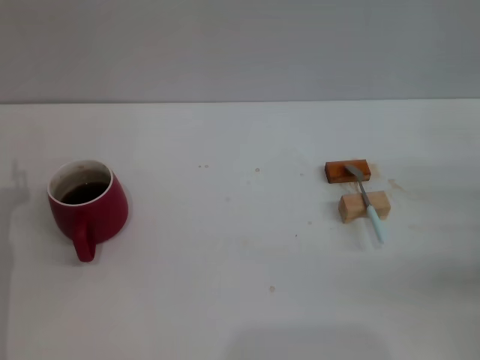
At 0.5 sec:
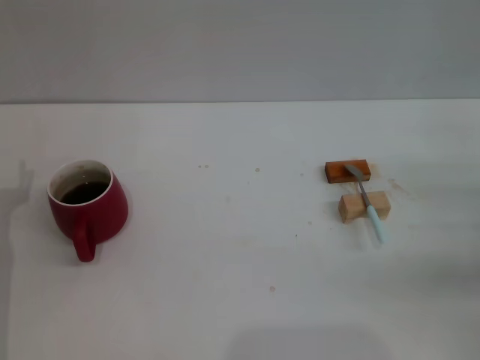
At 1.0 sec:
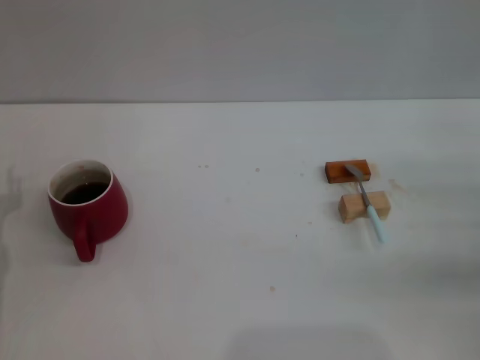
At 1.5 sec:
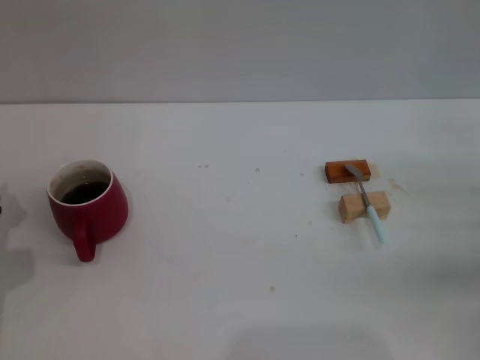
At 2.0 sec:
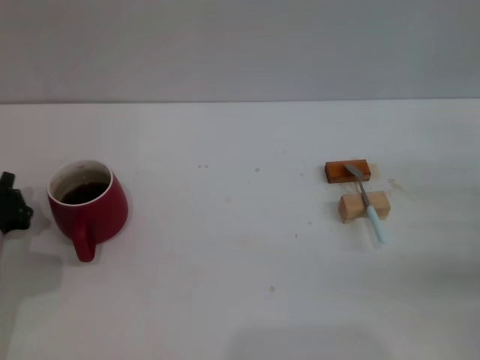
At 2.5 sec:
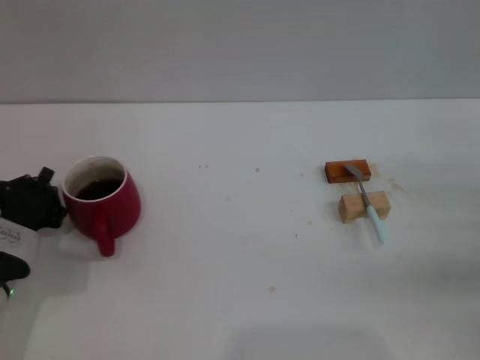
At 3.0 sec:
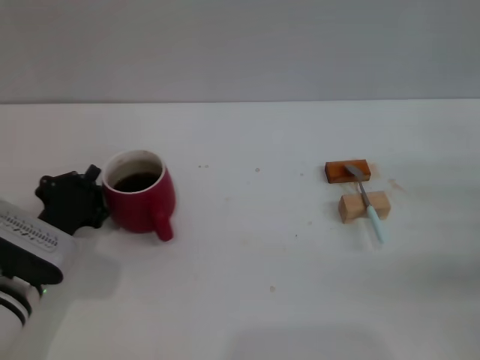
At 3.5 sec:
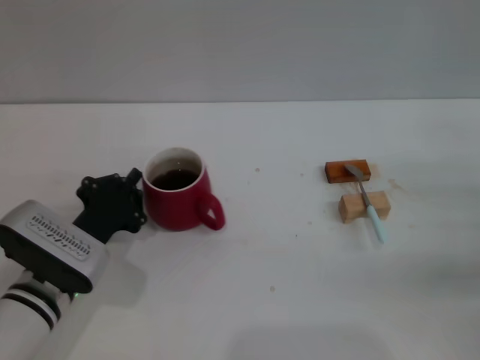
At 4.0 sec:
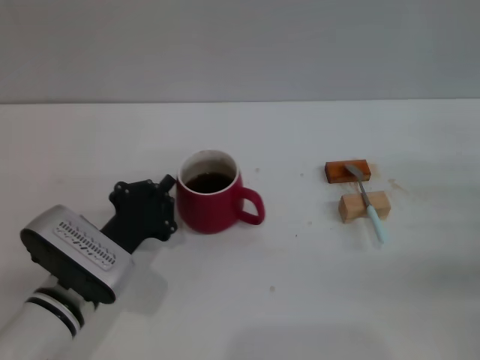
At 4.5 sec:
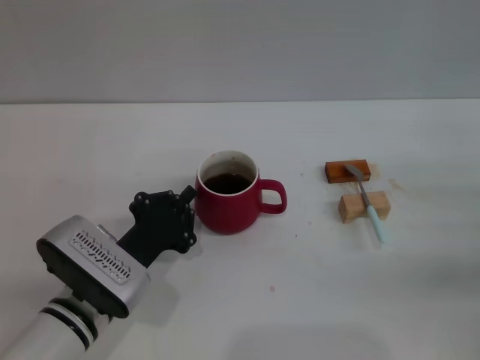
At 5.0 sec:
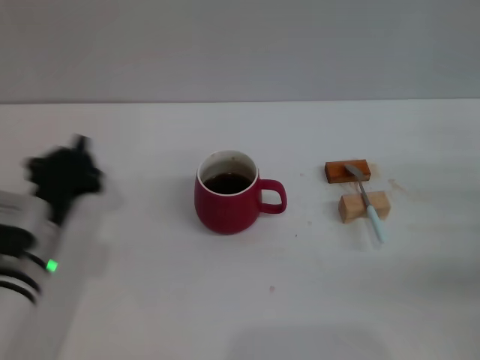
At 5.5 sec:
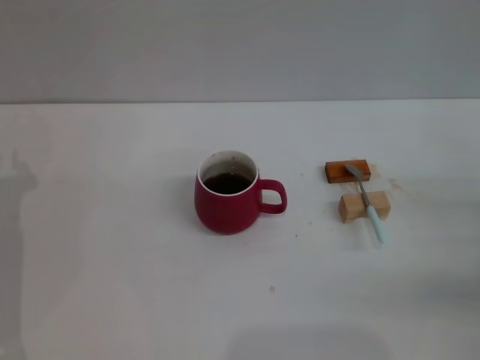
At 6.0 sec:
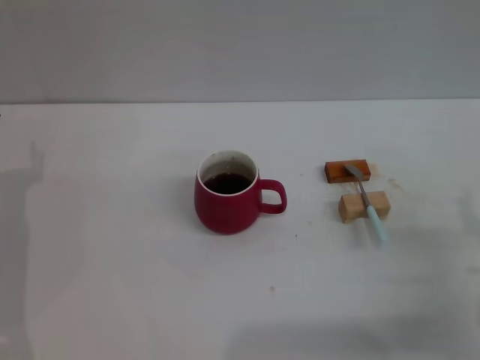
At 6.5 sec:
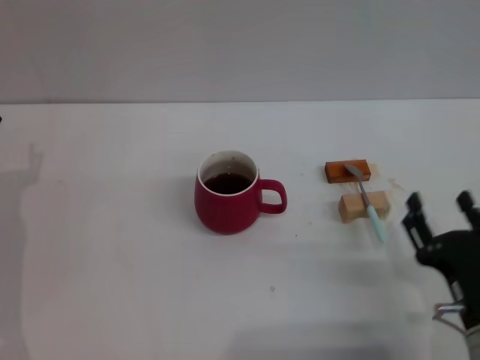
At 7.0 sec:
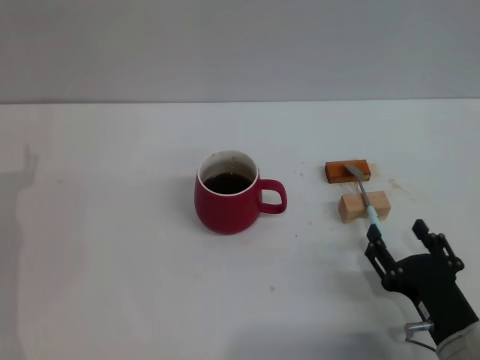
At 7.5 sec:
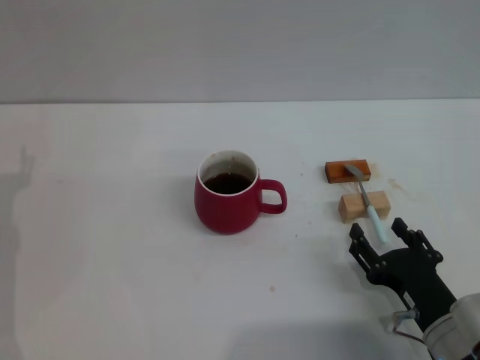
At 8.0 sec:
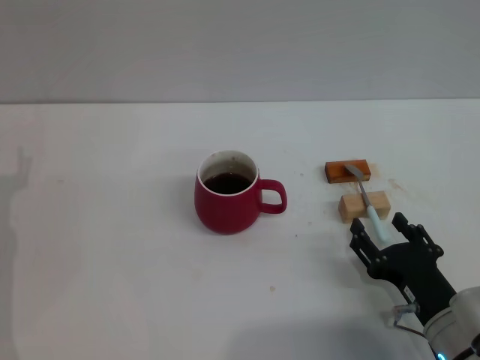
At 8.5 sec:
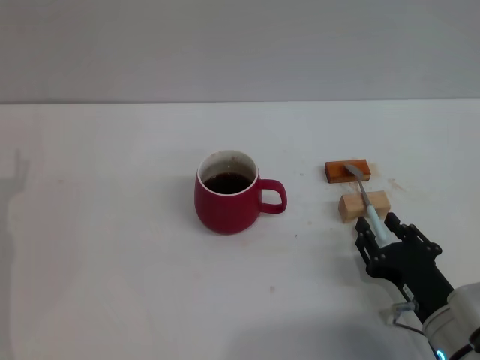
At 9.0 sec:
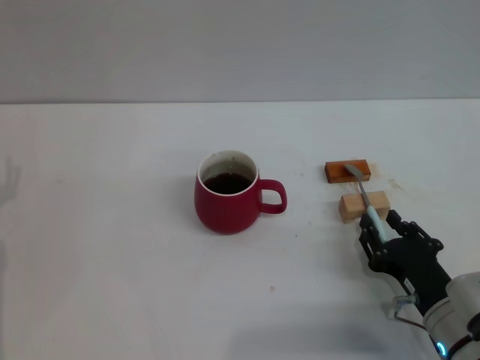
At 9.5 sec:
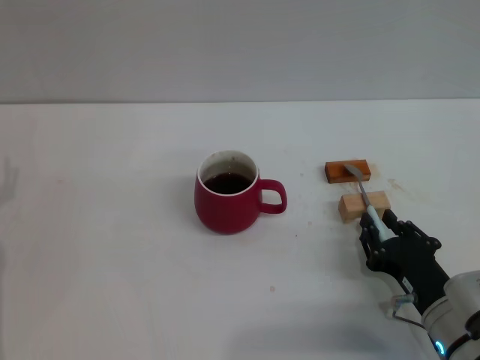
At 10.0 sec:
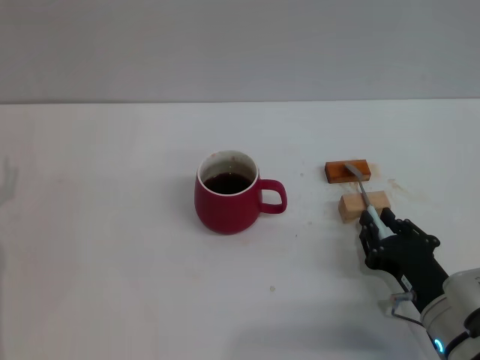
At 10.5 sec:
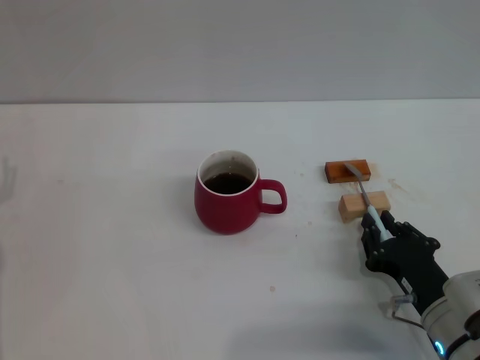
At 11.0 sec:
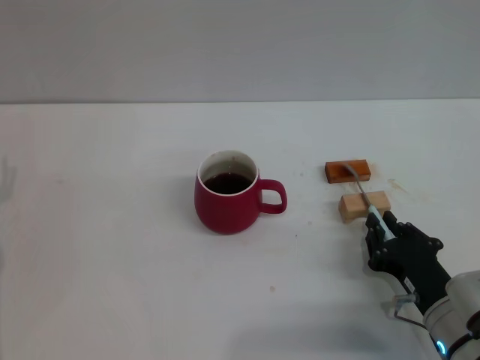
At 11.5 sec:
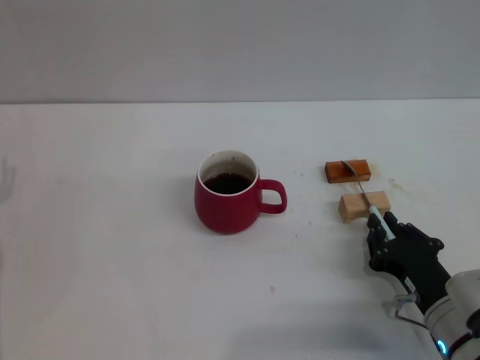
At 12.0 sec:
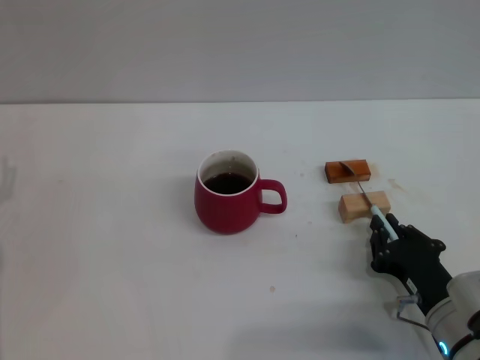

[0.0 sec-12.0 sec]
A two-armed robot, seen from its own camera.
Task of the whole recording: Move the red cup to the center, lift the blue spoon, stir it three times in the cup, and put the spoon into the cup.
Step, 0.0 sec to 4.5 sec: Move the cup in the center of the table with left gripper.
0.0 sec to 2.0 sec: The left gripper closes.
2.0 sec to 4.0 sec: The left gripper travels to the right by approximately 10 cm.
4.0 sec to 6.0 sec: The left gripper is displaced to the left by approximately 10 cm, and opens up, while the right gripper shifts some 10 cm to the left and backward.
6.0 sec to 8.0 sec: The right gripper moves to the left, approximately 5 cm.
8.0 sec to 10.0 sec: The right gripper closes.
10.0 sec to 12.0 sec: Both grippers stay about where they are.

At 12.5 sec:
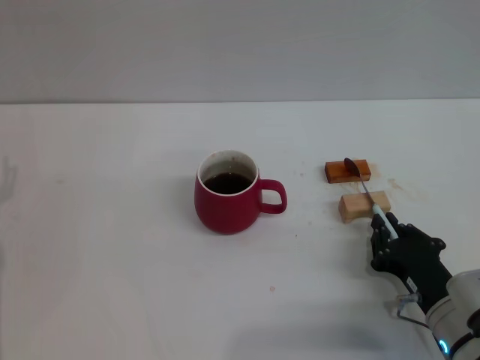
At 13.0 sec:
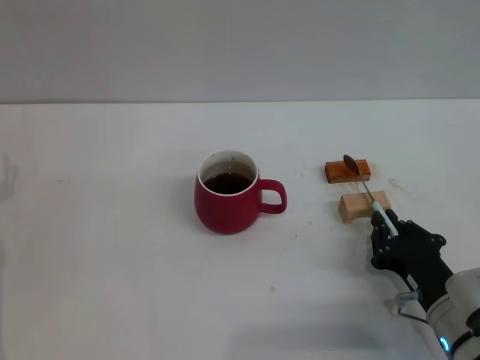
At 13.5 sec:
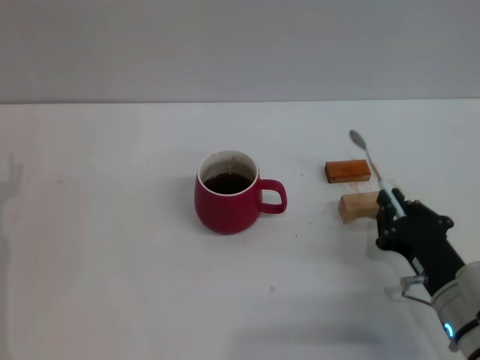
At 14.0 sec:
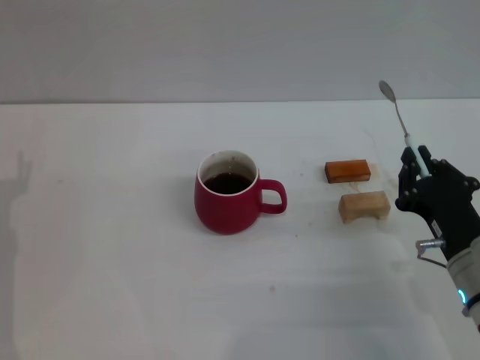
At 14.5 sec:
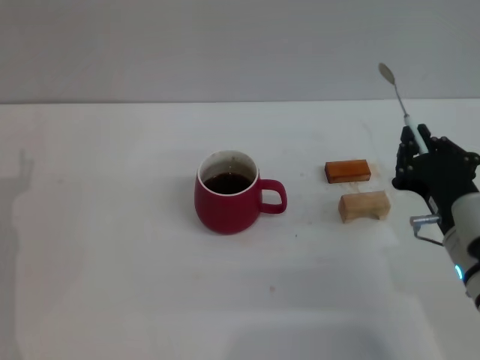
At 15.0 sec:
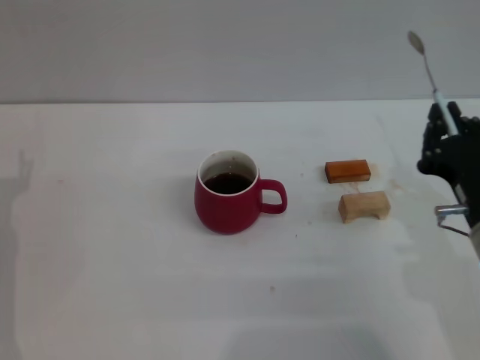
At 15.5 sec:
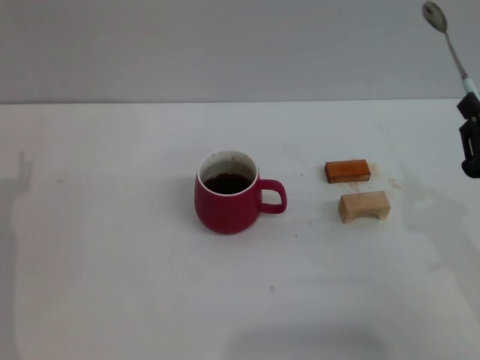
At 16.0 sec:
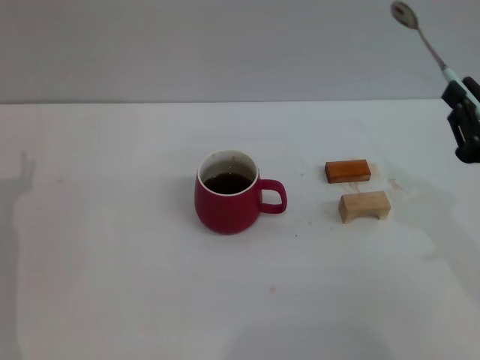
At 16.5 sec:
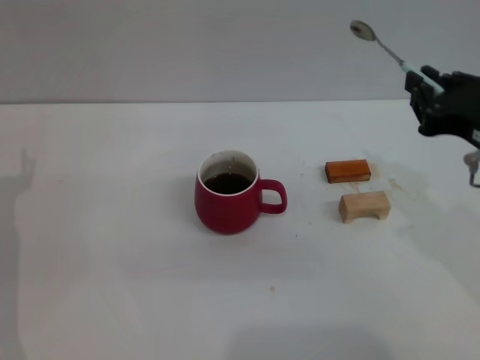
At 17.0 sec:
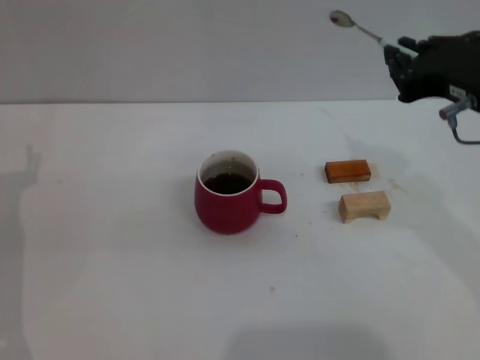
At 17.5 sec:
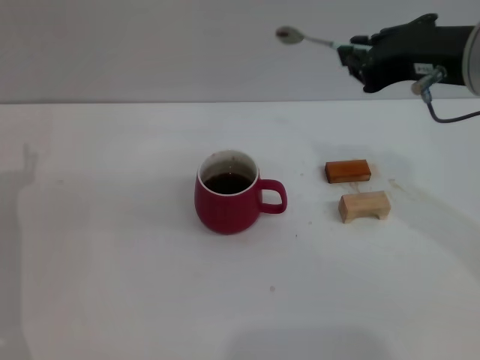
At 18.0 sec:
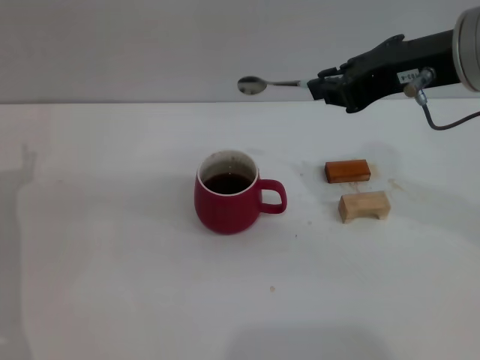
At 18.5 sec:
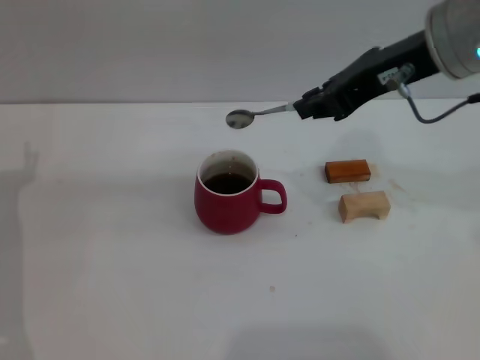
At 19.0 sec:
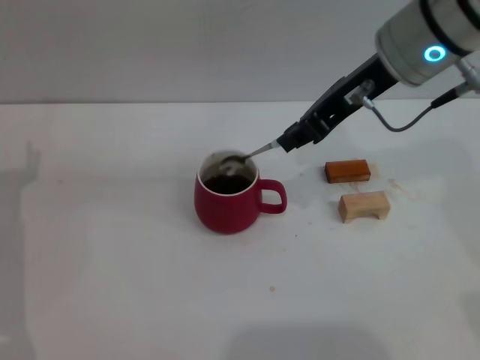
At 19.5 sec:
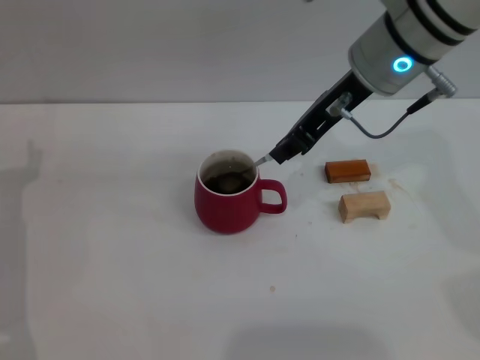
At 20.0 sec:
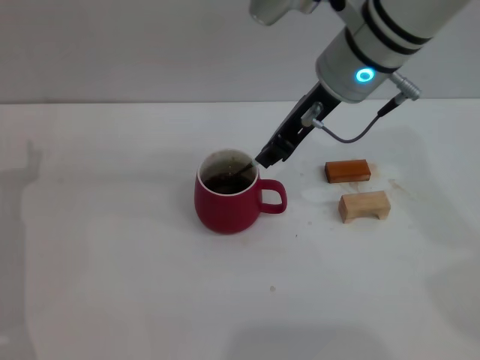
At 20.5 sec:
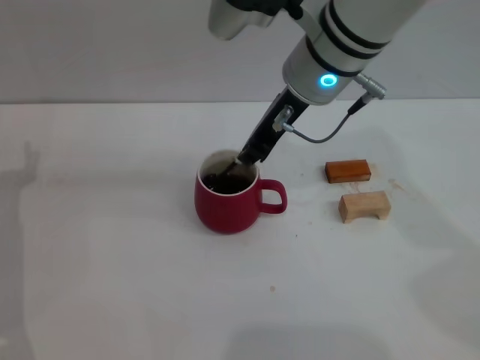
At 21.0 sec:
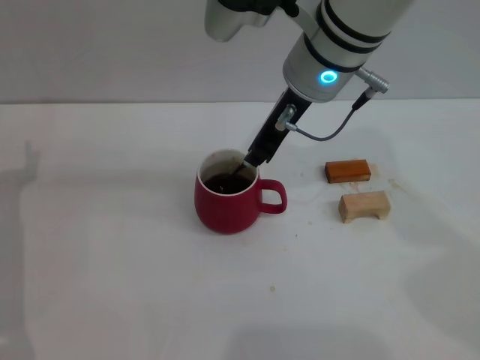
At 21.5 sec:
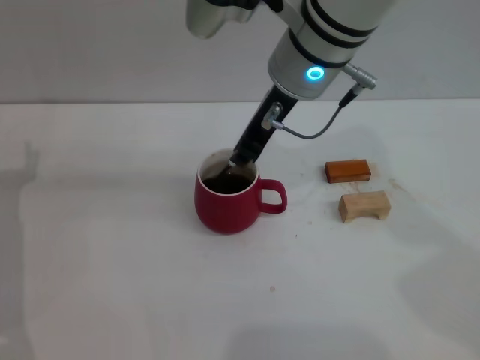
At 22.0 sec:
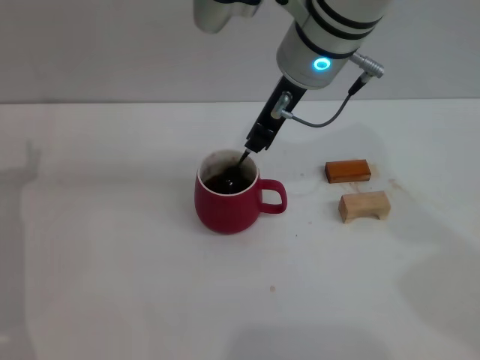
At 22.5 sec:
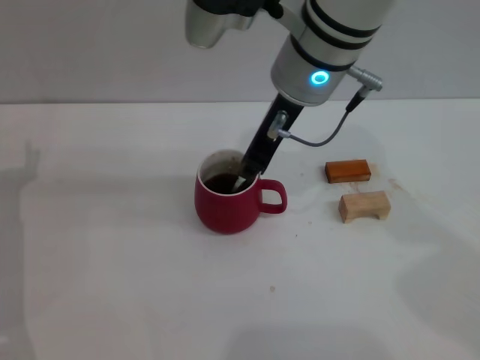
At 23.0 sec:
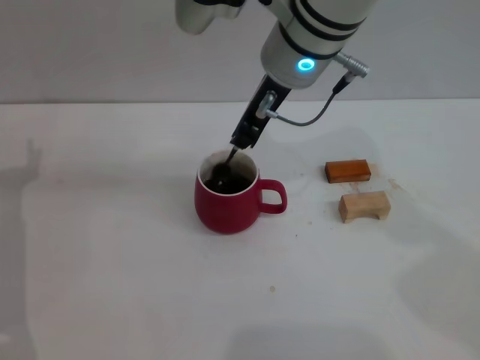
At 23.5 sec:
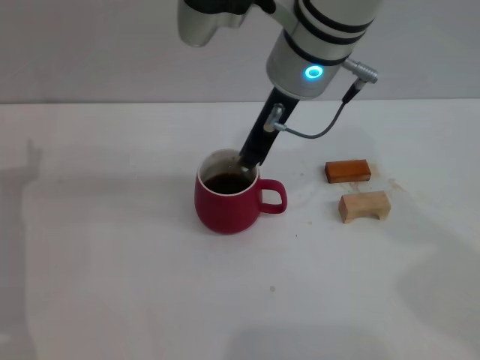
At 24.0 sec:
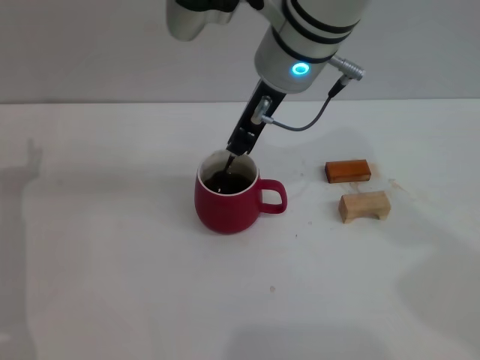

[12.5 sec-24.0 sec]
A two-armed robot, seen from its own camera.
Task of the whole recording: Move the red cup to the center, lift the blue spoon, stir it three times in the cup, and put the spoon into the cup.
12.5 sec to 14.5 sec: The right gripper shifts roughly 10 cm upward.
14.5 sec to 16.5 sec: The right gripper is displaced upward by roughly 10 cm.
16.5 sec to 18.5 sec: The right gripper is displaced upward, forward and to the left by some 15 cm.
18.5 sec to 20.0 sec: The right gripper heads to the left, forward and downward, covering some 10 cm.
20.0 sec to 22.0 sec: The grippers move only a little.
22.0 sec to 24.0 sec: The grippers move only a little.

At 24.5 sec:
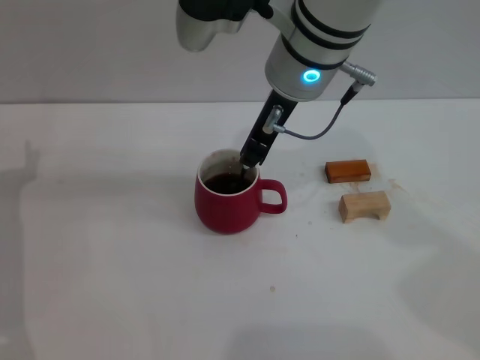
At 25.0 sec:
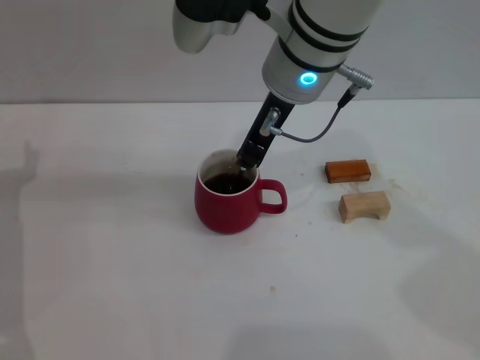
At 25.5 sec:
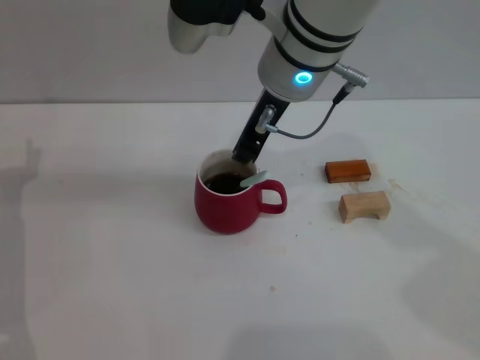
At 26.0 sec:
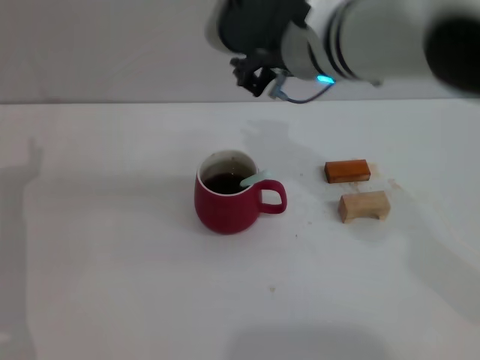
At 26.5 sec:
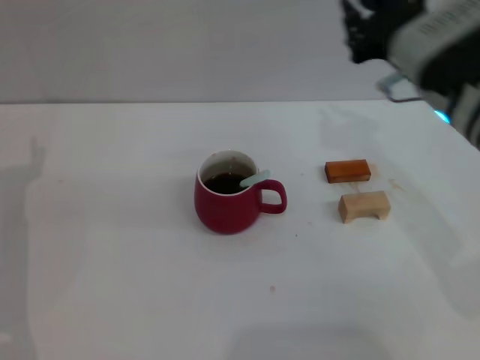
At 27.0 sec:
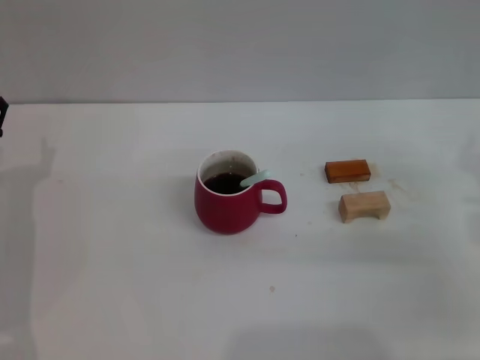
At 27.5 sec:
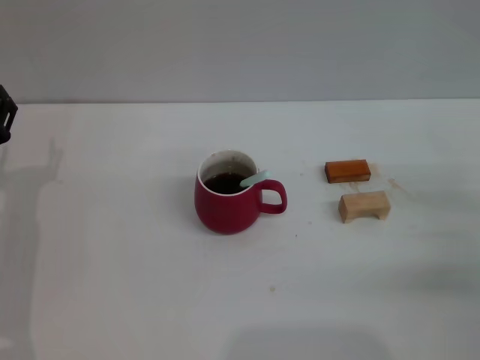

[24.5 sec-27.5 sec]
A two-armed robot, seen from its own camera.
Task of the whole recording: Move the red cup to the center, lift the blue spoon, stir it three times in the cup, and put the spoon into the cup.
26.0 sec to 27.5 sec: The right gripper shifts some 30 cm to the right and downward.
